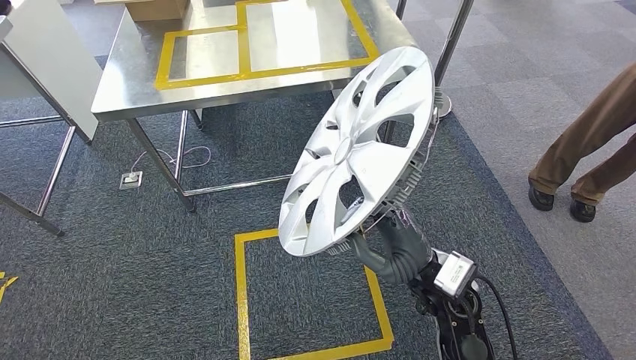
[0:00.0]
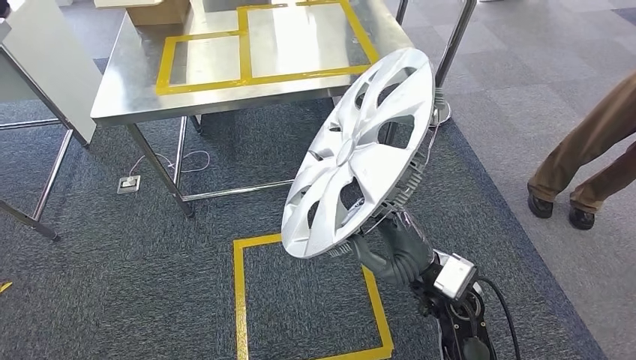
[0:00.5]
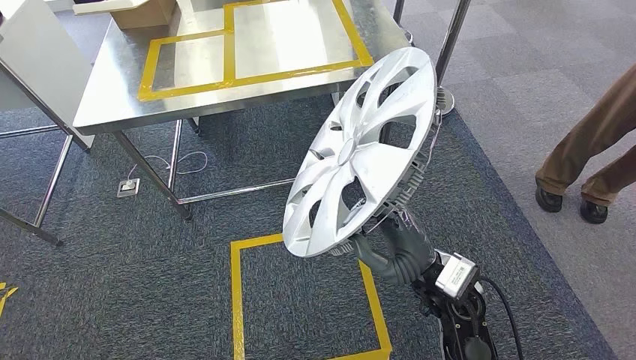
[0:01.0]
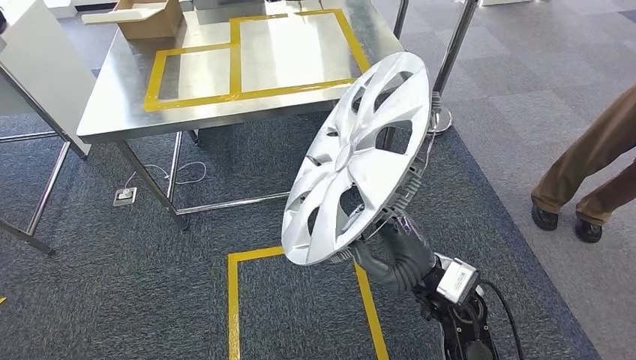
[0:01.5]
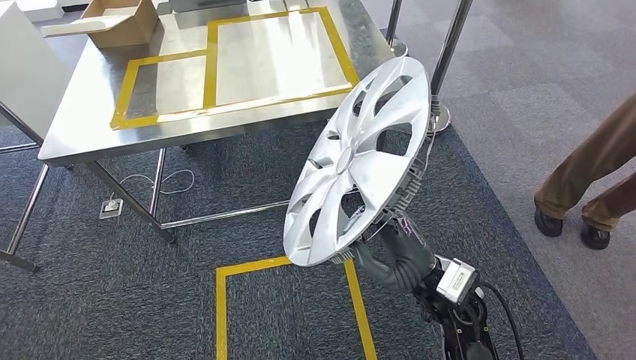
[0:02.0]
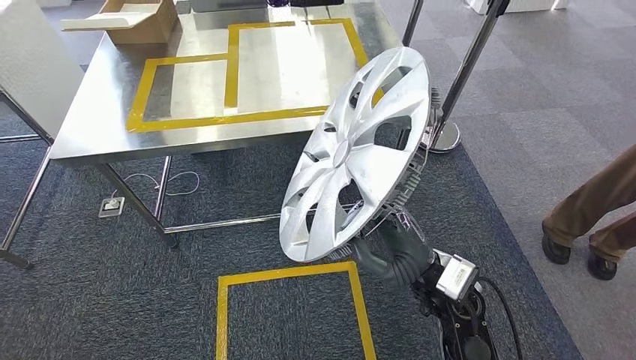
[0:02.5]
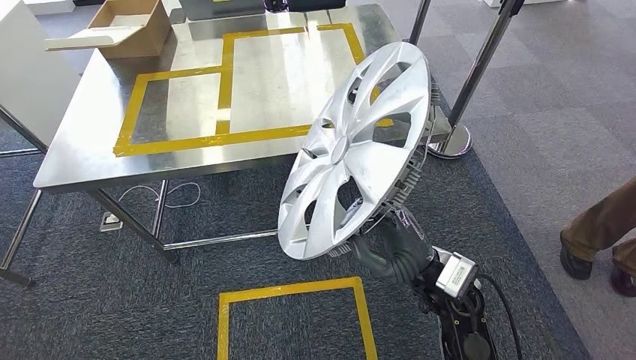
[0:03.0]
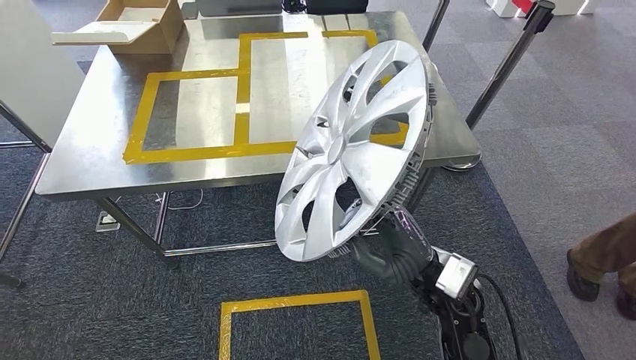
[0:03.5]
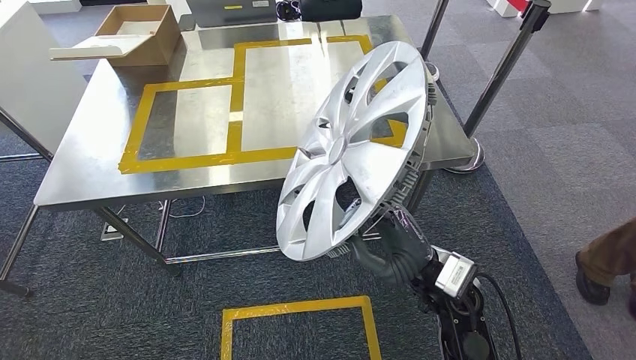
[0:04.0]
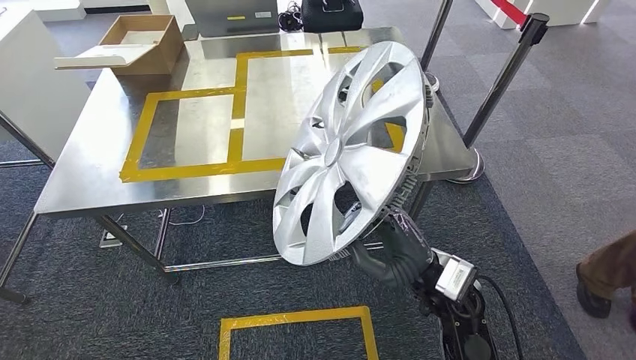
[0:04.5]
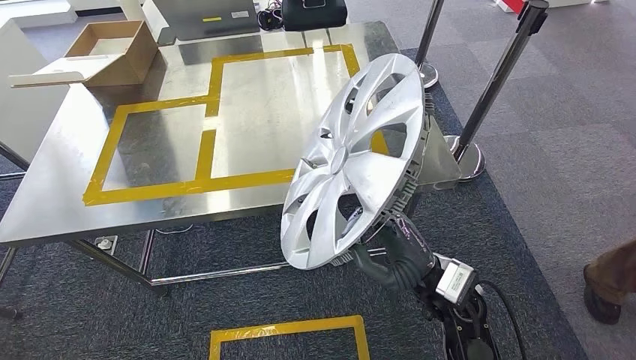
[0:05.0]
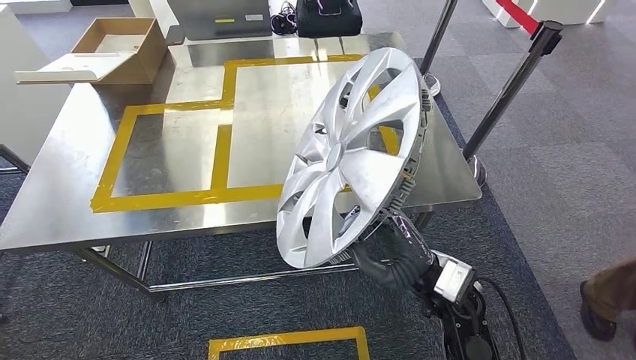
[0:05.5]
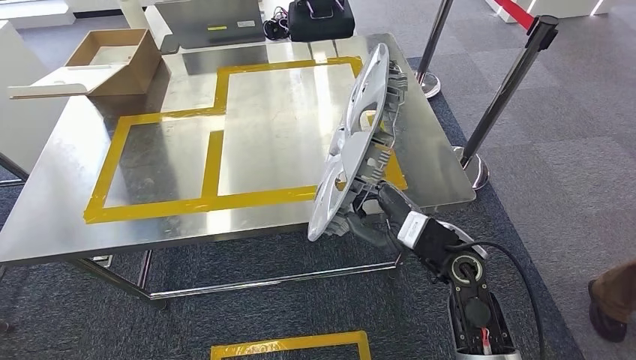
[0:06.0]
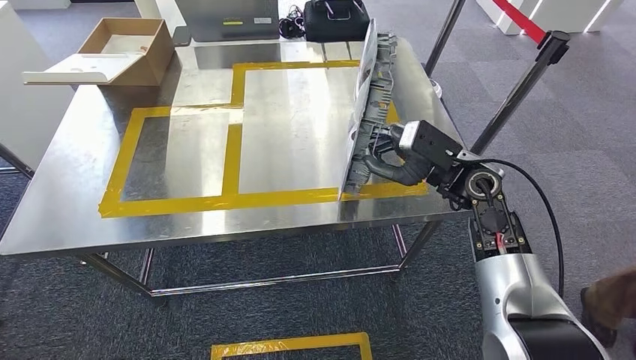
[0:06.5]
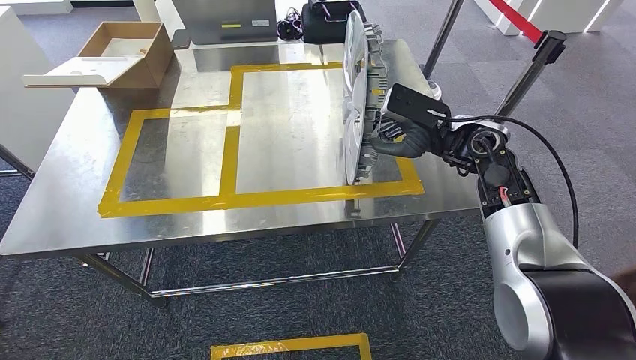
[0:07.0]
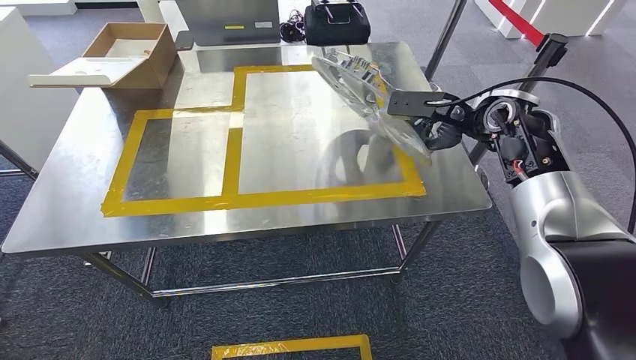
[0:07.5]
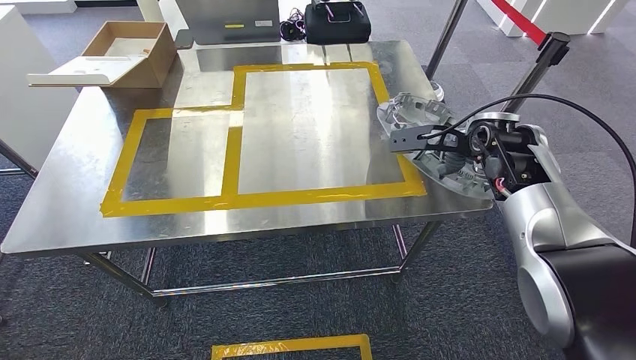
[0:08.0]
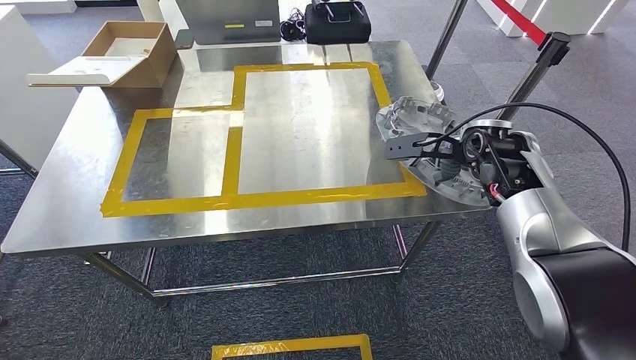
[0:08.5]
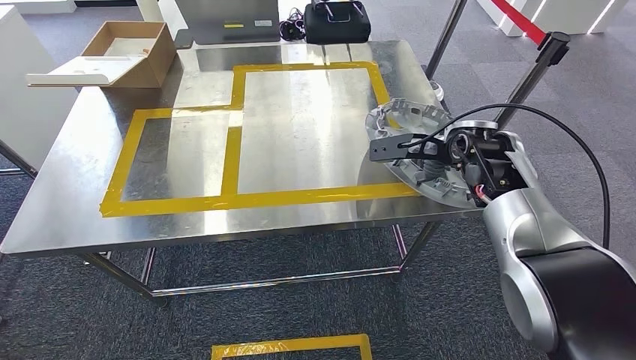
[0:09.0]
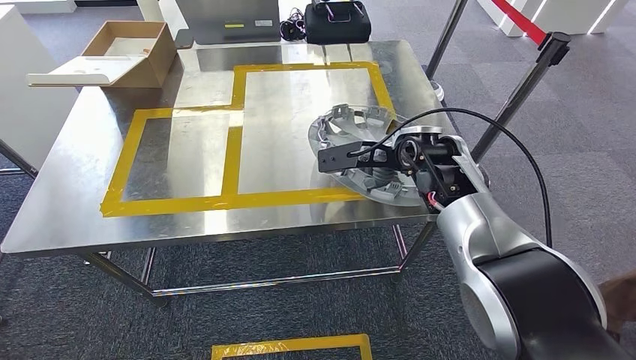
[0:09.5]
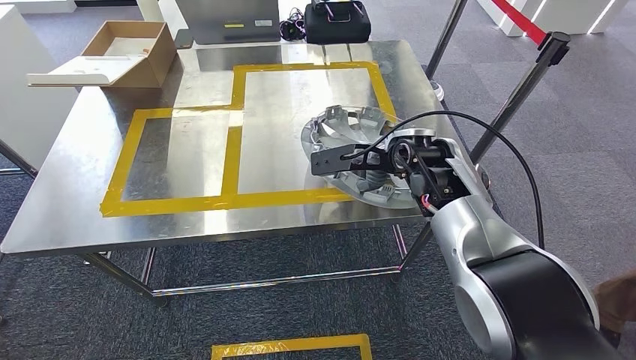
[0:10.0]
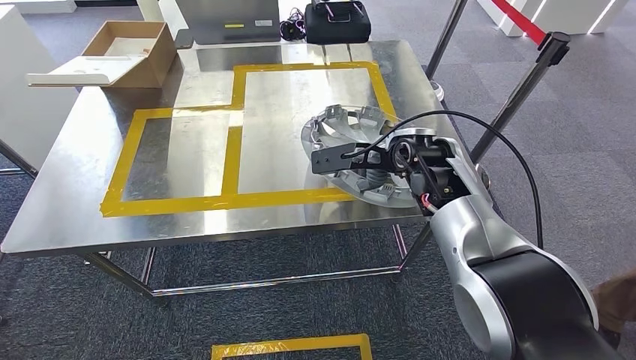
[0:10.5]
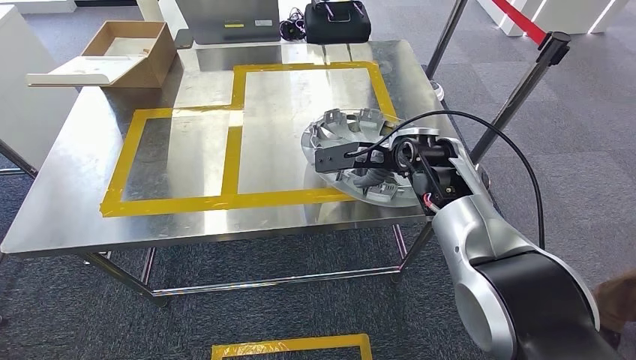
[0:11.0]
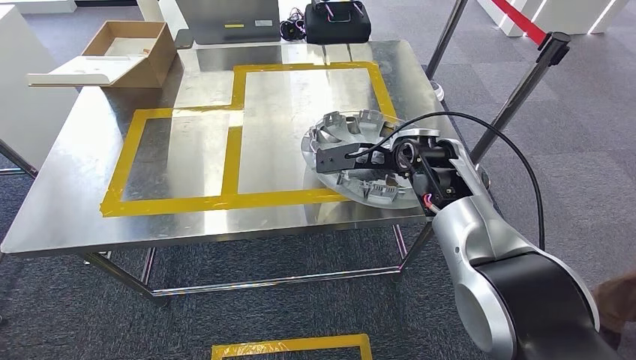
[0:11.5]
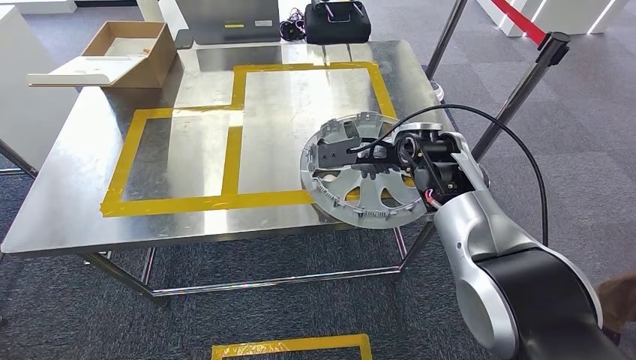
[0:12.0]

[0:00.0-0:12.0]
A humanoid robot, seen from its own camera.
Step, 0:00.0 to 0:08.0: Move the large parts to the workbench.
0:08.0 to 0:10.0: The right hand goes roughly 15 cm to the left.
0:10.0 to 0:12.0: The hands stay close to where they were, moving slightly.

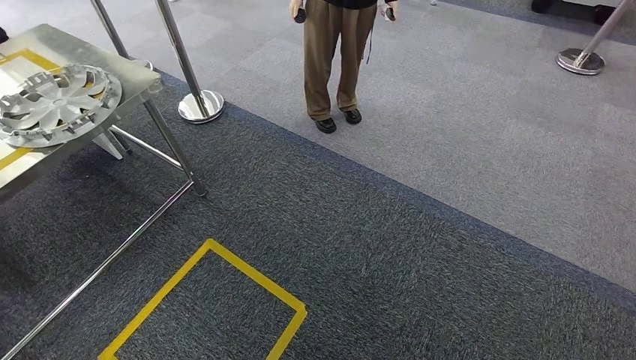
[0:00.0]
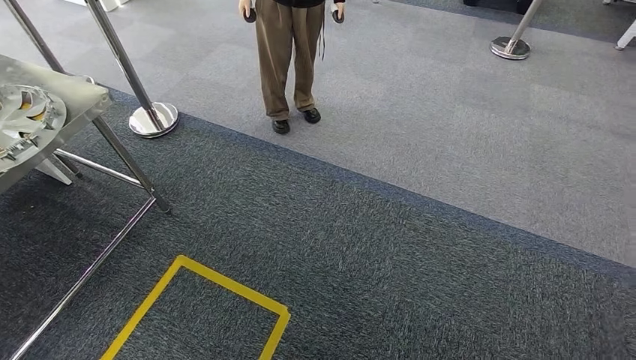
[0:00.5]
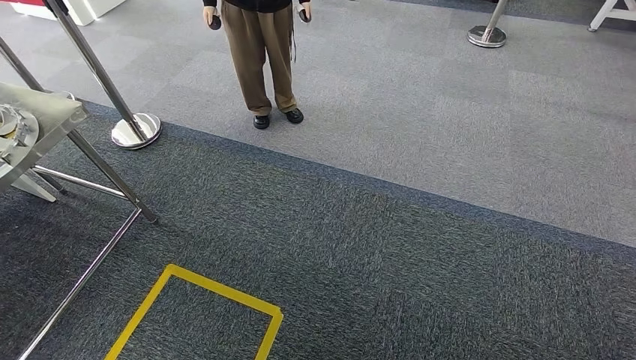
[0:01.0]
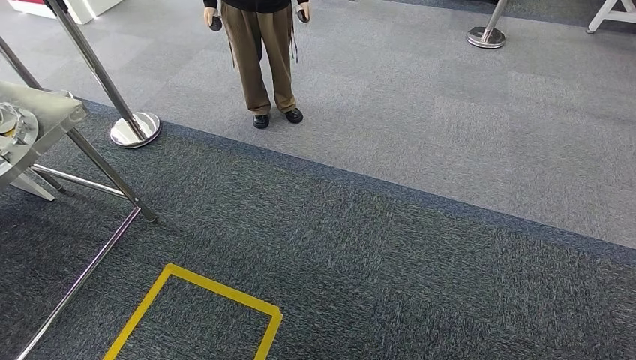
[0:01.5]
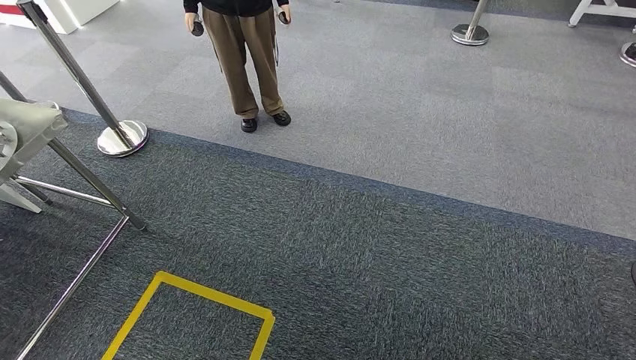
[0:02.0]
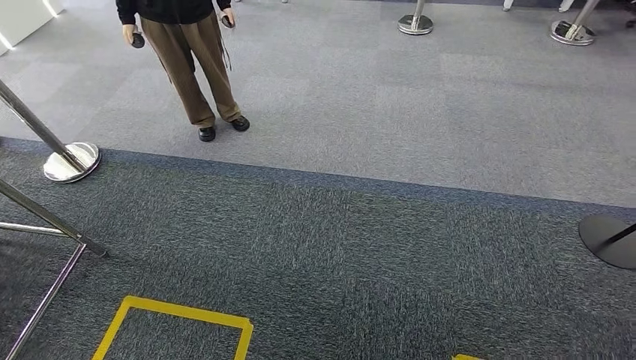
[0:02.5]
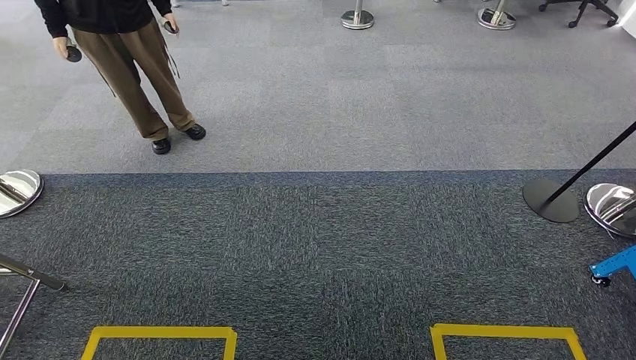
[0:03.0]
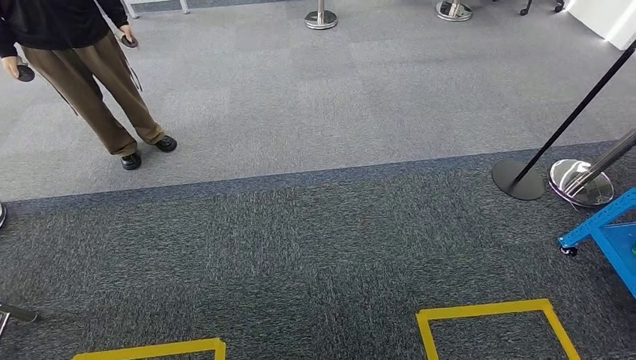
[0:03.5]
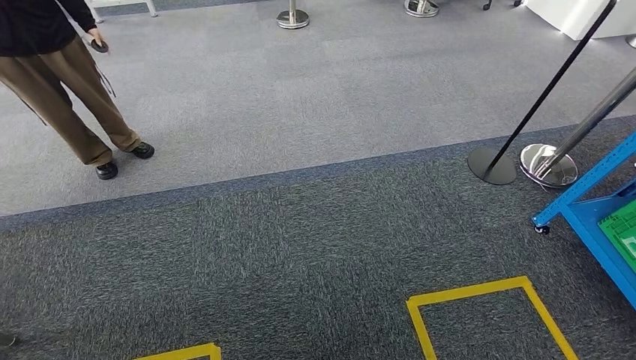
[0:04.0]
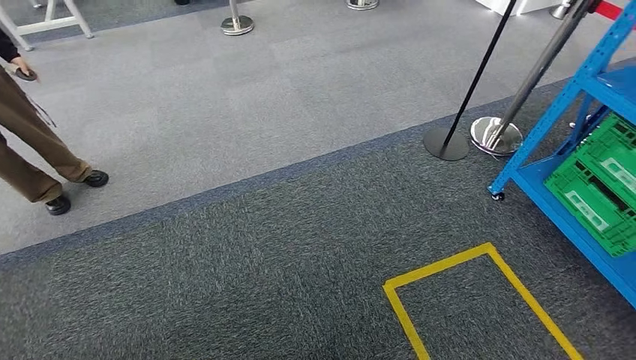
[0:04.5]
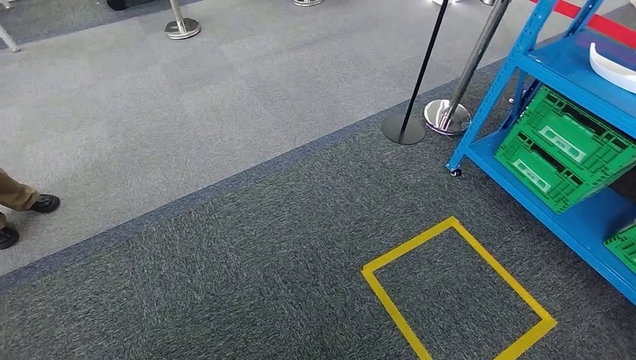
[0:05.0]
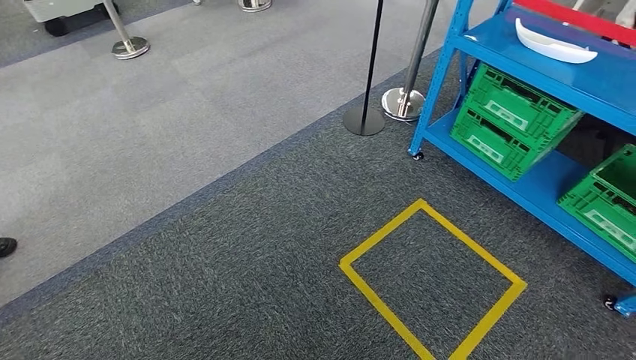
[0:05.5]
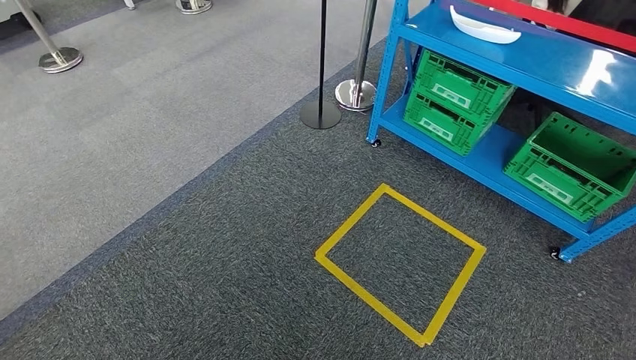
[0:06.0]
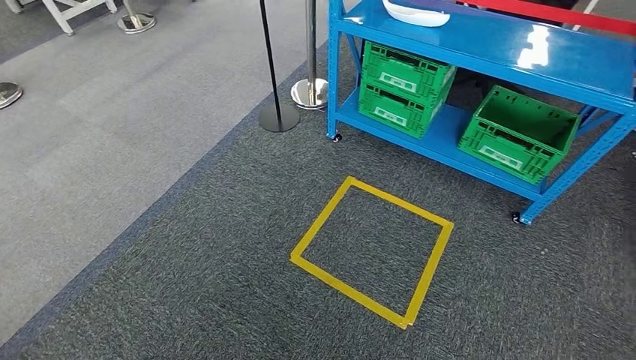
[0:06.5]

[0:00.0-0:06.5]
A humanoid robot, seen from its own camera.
Step, 0:00.0 to 0:06.5: Return to the initial position at the shelf.
